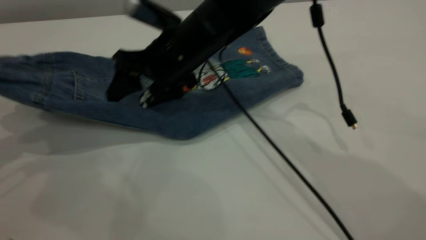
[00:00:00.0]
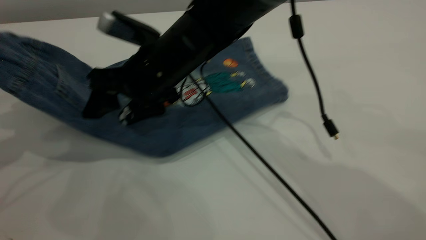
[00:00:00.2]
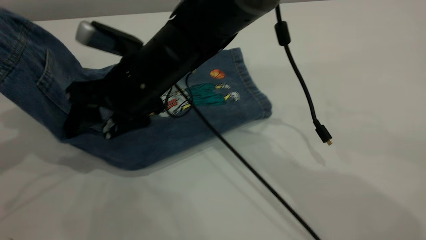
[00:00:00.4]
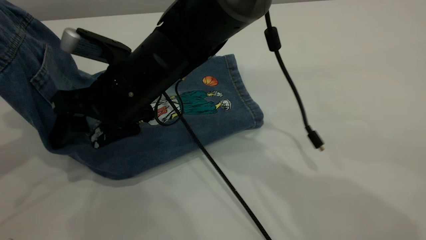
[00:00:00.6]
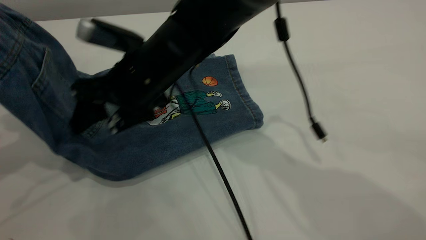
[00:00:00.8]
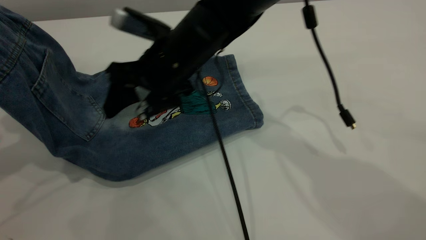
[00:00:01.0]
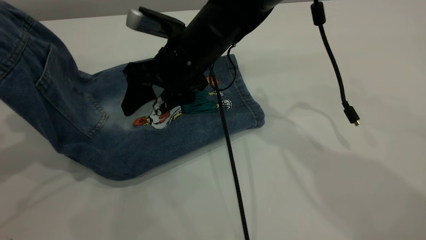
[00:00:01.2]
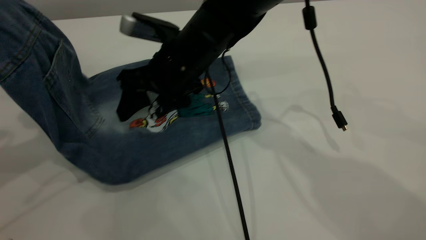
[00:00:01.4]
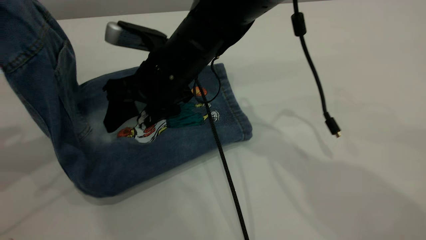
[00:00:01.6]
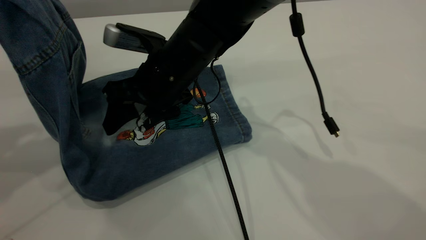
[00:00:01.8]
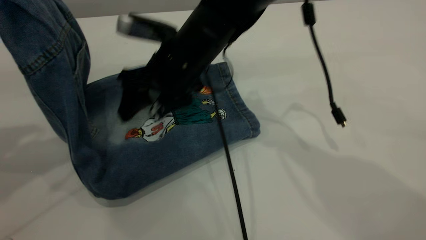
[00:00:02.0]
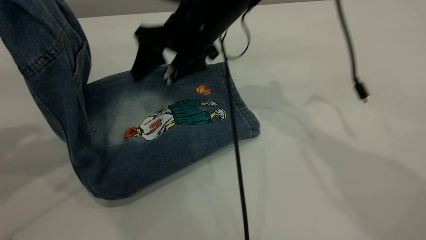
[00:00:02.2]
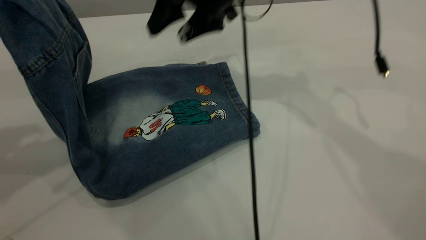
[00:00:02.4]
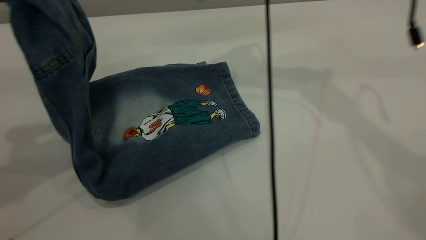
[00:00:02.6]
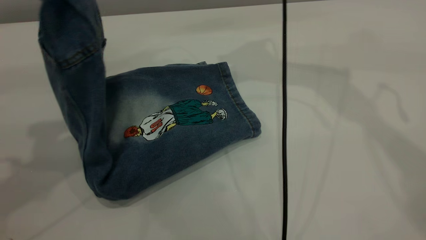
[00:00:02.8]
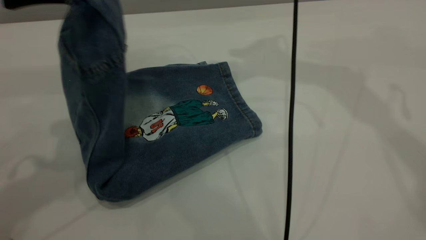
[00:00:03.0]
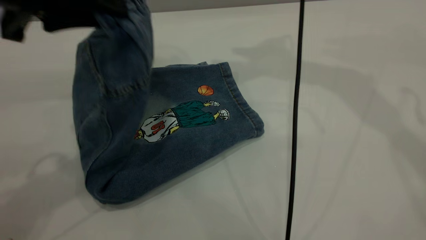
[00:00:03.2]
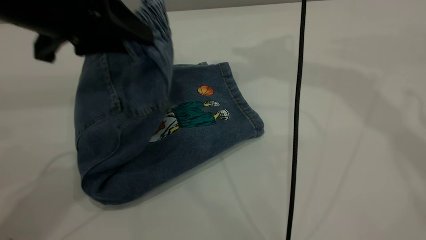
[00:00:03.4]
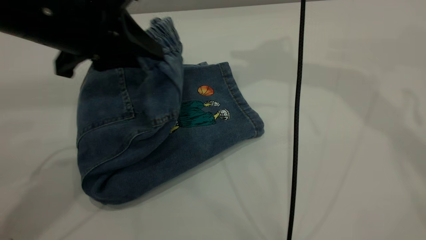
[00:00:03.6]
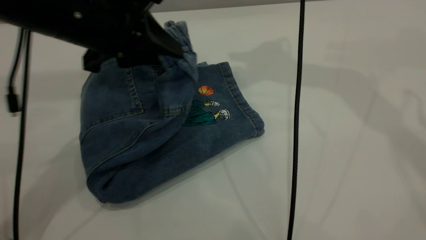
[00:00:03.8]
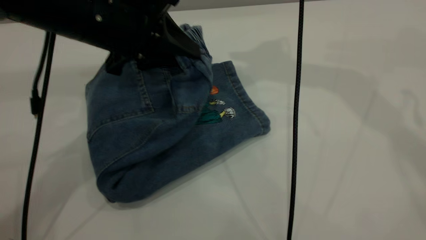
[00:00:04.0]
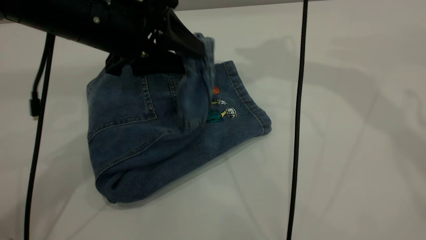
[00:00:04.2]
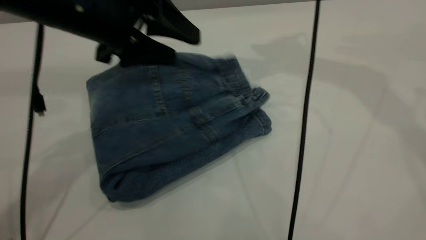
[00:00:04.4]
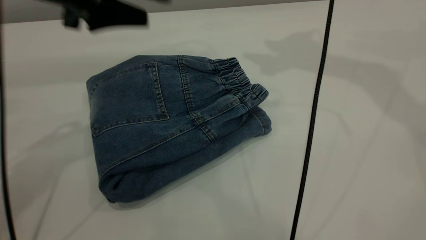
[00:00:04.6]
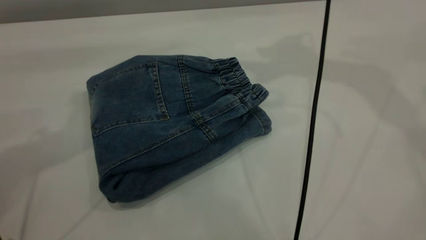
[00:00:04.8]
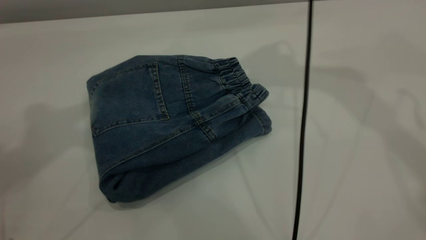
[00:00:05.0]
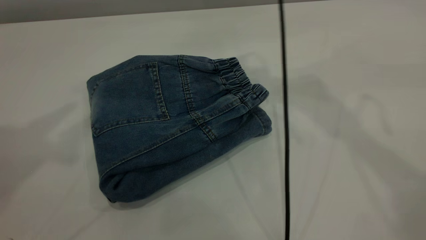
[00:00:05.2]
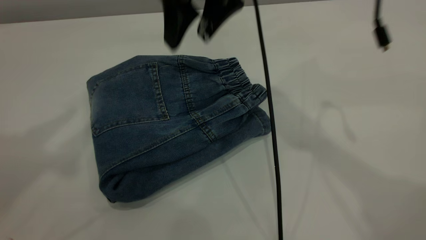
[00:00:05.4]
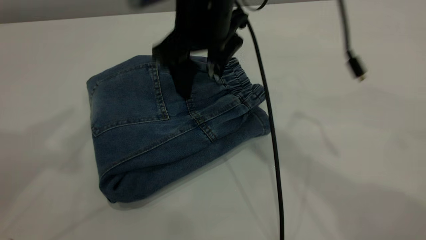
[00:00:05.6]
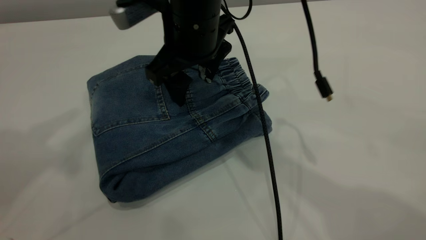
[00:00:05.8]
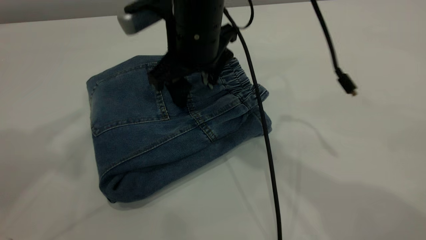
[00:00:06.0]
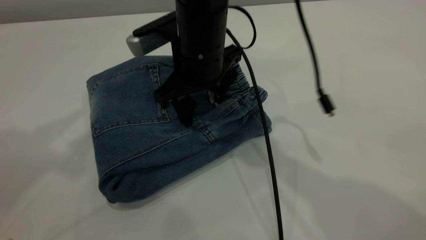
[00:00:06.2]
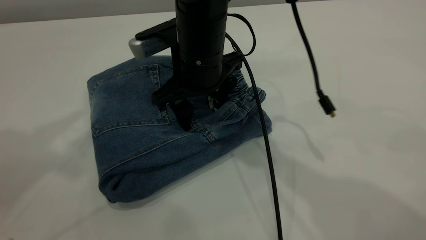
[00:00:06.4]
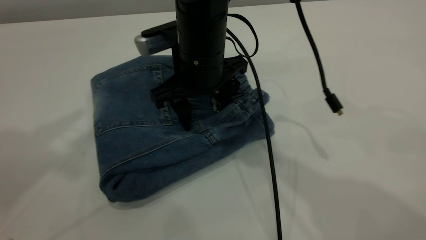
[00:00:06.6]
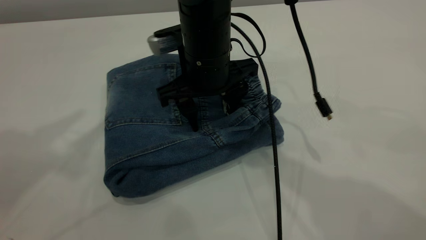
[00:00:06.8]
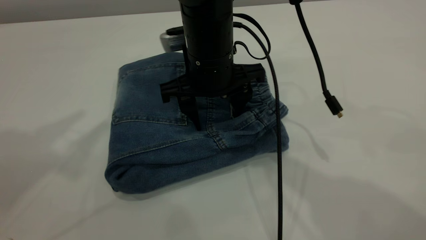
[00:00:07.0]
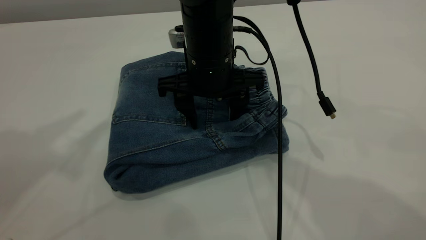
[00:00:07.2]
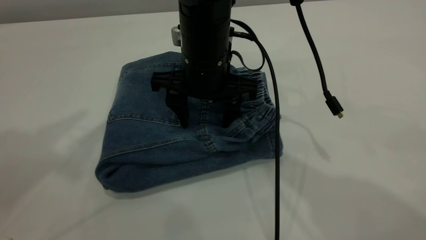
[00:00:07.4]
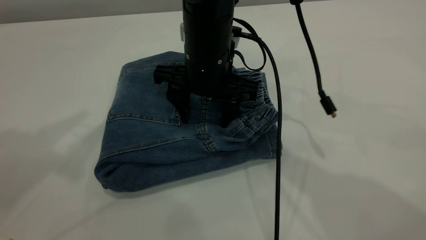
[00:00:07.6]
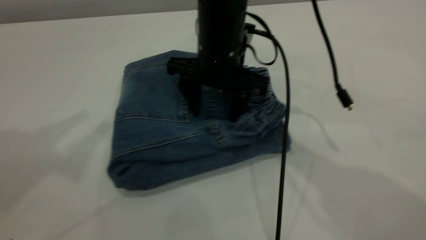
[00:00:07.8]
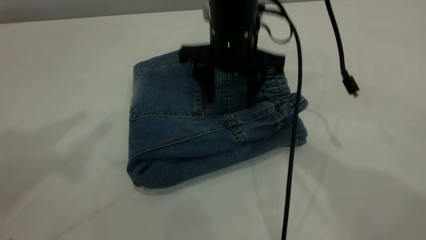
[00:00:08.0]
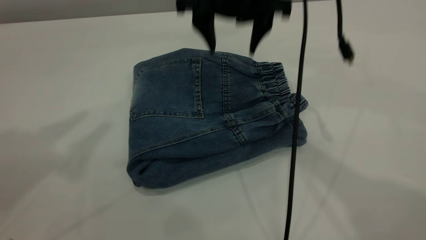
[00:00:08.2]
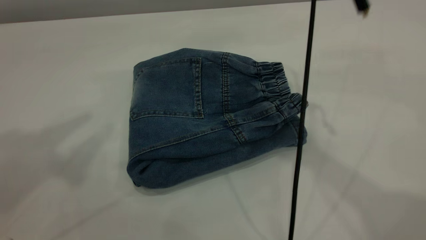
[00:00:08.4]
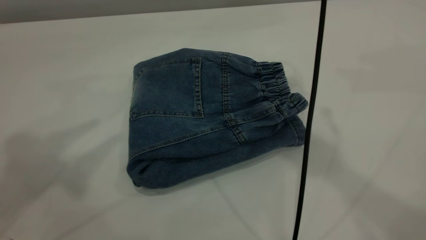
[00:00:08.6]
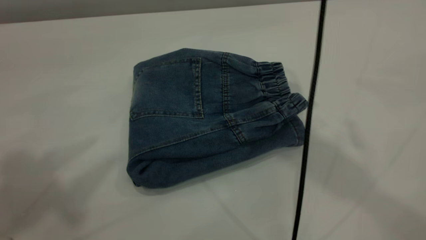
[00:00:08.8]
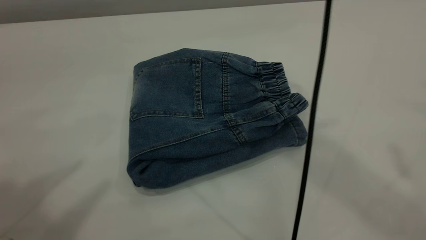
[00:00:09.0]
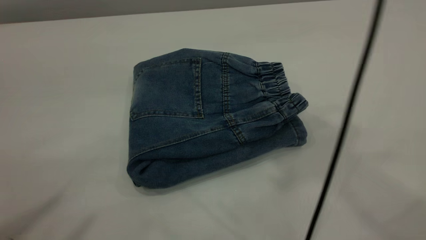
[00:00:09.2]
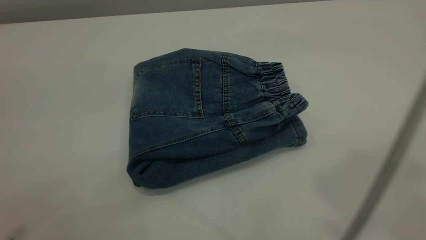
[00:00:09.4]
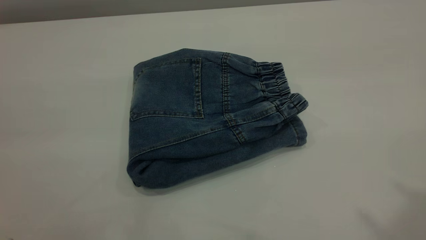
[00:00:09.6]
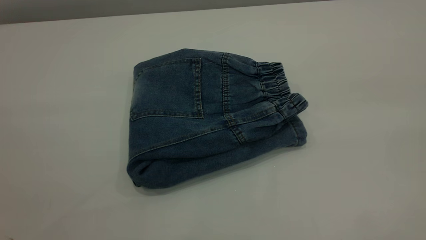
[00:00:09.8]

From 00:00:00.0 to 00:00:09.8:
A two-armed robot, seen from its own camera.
Step, from 00:00:00.0 to 00:00:05.2: Fold the pants from left to right.
From 00:00:00.0 to 00:00:01.4: The left gripper is displaced upward by about 5 cm.
From 00:00:01.4 to 00:00:02.8: The right gripper travels upward, to the right and forward by some 25 cm. Meanwhile the left gripper goes about 10 cm to the right.
From 00:00:02.8 to 00:00:04.2: The right gripper goes some 5 cm upward; the left gripper moves downward, to the right and forward, about 15 cm, and opens up.
From 00:00:04.2 to 00:00:05.6: The left gripper goes some 25 cm upward and to the left, while the right gripper heads downward, to the left and backward, covering about 25 cm.
From 00:00:05.6 to 00:00:07.0: The right gripper heads downward, covering roughly 5 cm.
From 00:00:07.0 to 00:00:08.4: The right gripper moves upward, some 20 cm.
From 00:00:08.4 to 00:00:09.8: The right gripper heads backward and to the right, covering roughly 40 cm.
